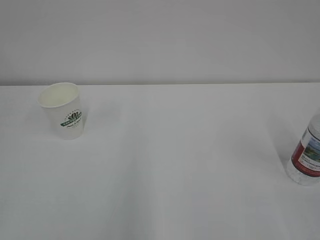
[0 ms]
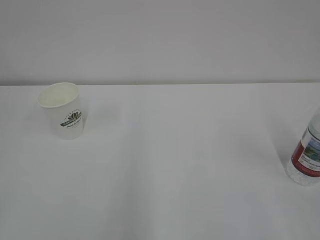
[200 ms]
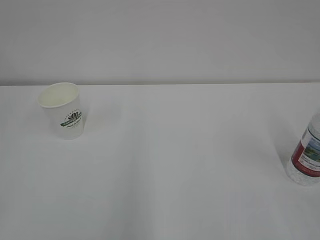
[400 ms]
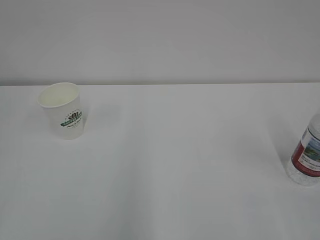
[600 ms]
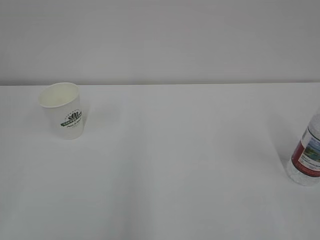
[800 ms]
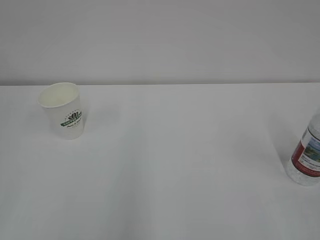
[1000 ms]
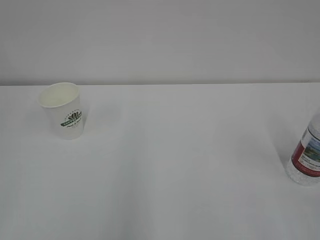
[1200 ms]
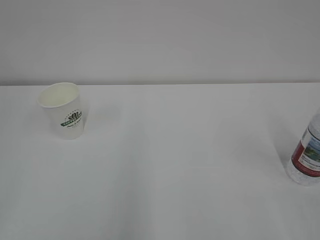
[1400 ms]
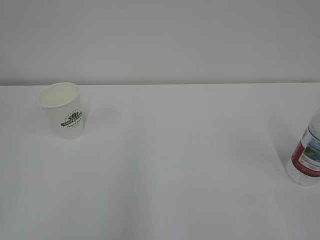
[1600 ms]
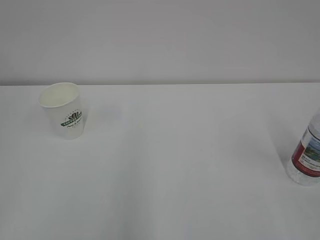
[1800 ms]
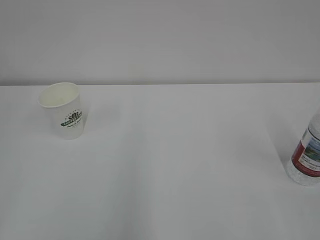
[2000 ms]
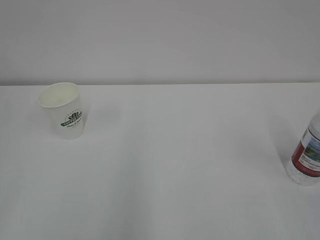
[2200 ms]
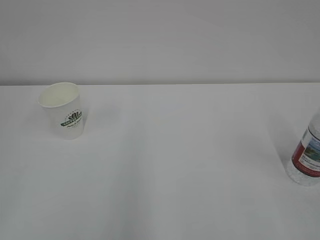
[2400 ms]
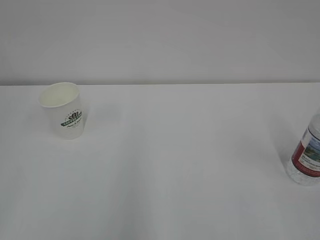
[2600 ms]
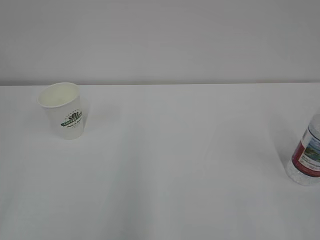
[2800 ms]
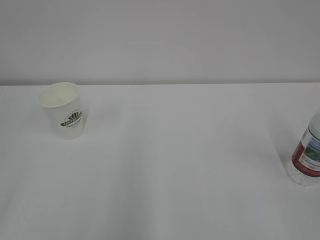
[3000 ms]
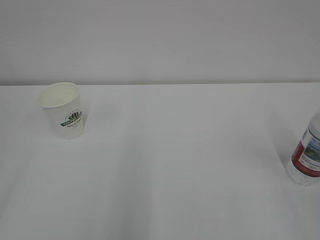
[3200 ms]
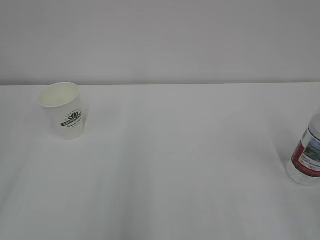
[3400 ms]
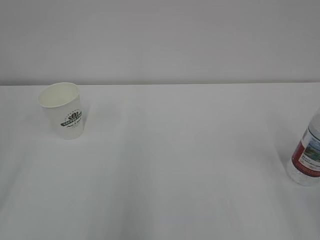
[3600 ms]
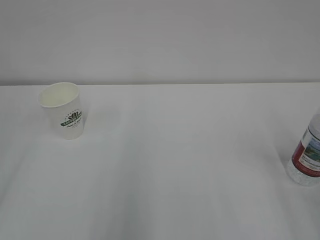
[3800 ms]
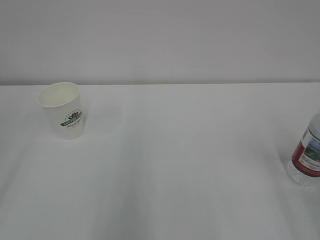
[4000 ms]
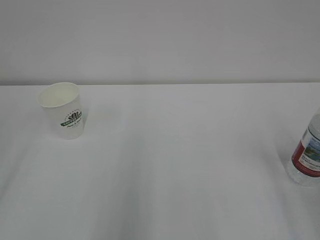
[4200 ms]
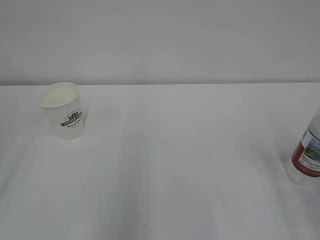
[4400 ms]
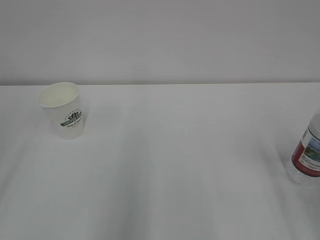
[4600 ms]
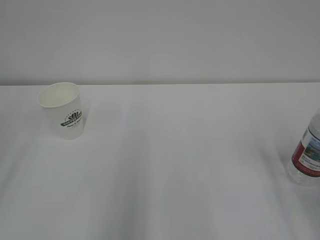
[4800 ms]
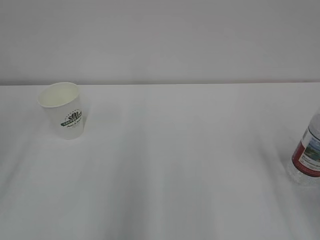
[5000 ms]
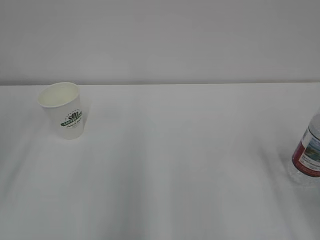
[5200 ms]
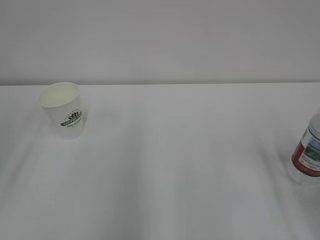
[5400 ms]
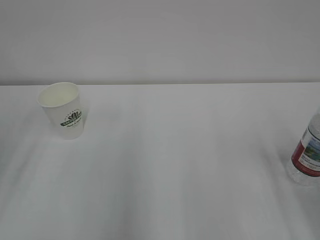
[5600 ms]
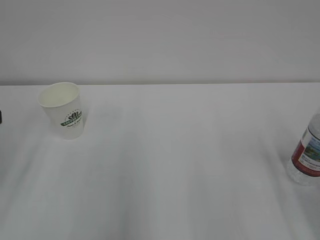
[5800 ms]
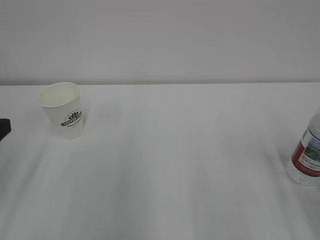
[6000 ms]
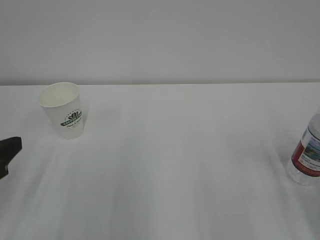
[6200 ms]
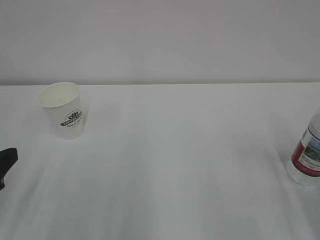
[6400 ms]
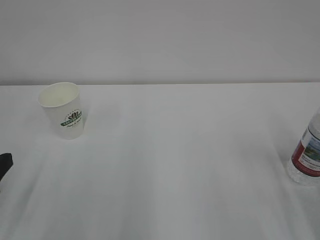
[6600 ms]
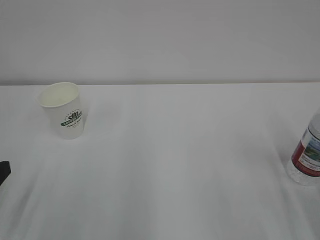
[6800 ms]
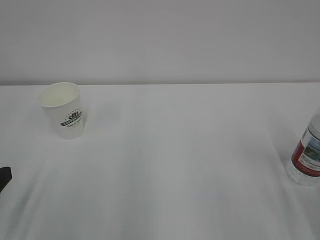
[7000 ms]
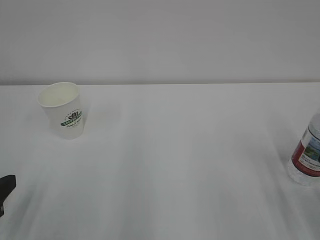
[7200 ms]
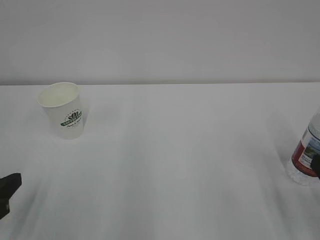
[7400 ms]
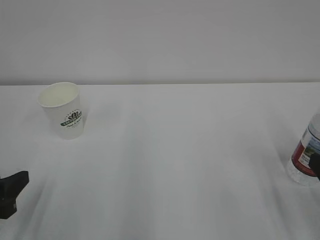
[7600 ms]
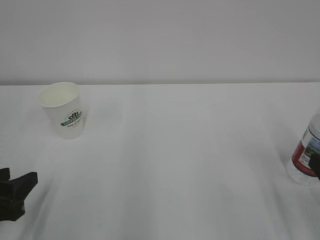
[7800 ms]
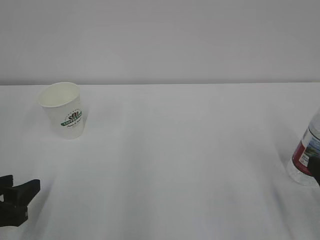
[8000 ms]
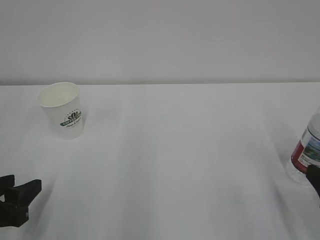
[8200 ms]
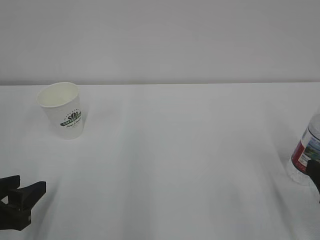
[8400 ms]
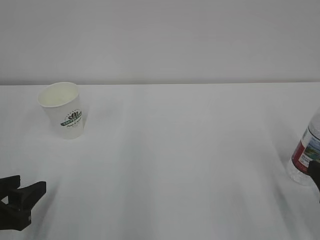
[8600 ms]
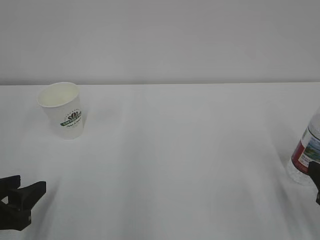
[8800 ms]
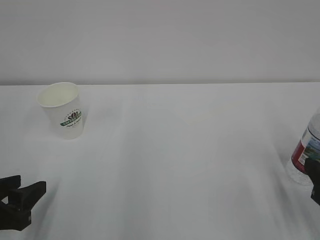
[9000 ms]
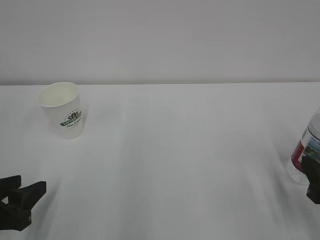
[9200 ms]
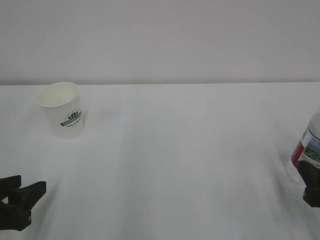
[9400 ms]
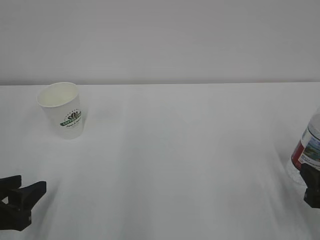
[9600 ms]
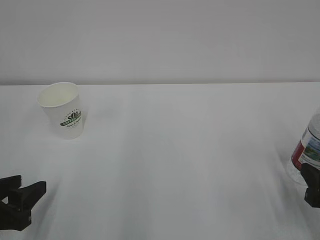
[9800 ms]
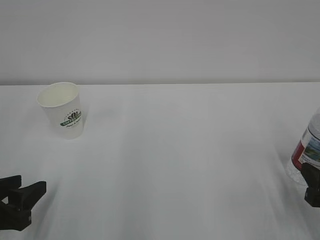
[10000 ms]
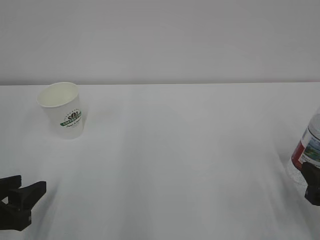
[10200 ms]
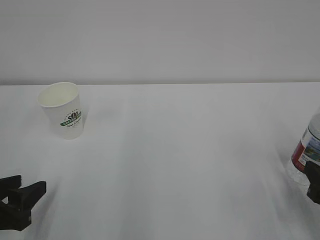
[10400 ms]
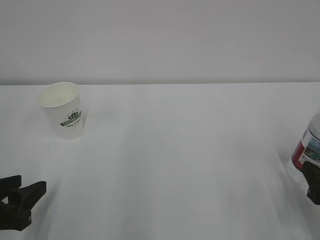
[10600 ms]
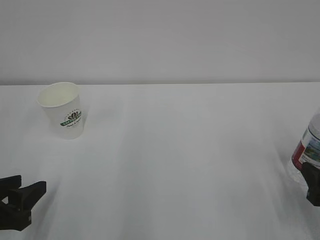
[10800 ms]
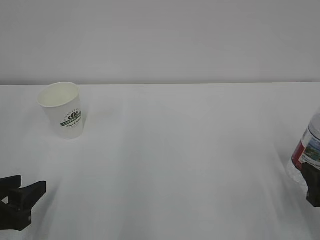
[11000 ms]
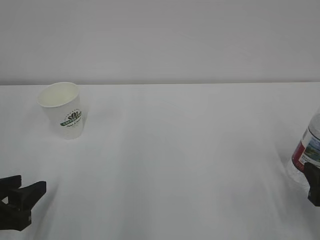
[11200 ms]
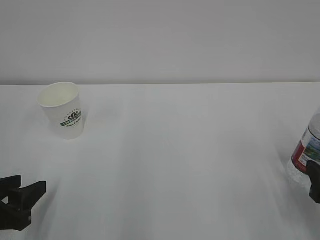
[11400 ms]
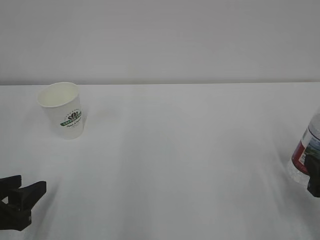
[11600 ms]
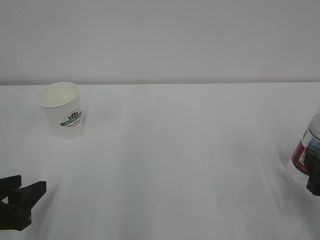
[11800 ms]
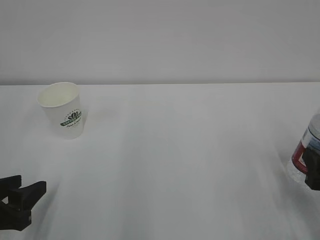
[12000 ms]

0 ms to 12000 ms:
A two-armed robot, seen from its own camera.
6000 ms to 7600 ms: The left gripper heads downward, covering roughly 10 cm.

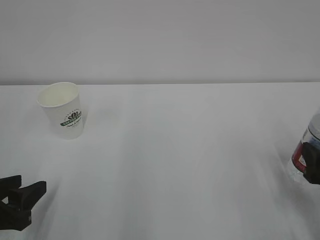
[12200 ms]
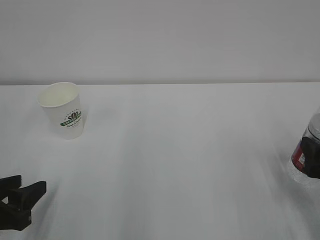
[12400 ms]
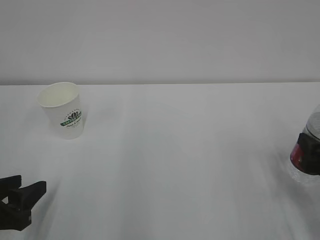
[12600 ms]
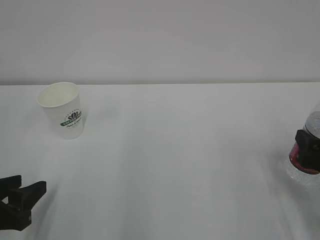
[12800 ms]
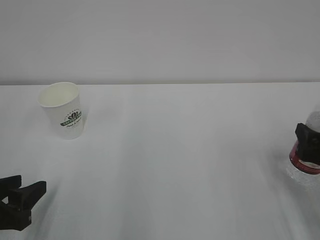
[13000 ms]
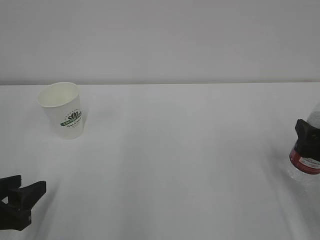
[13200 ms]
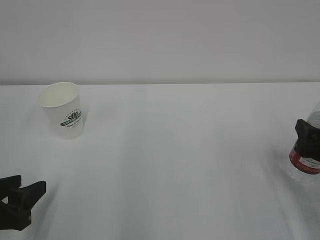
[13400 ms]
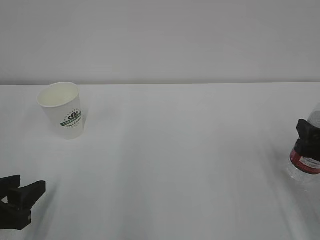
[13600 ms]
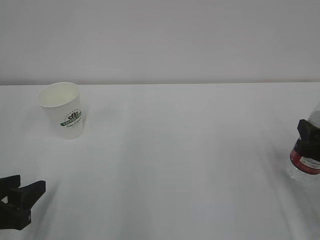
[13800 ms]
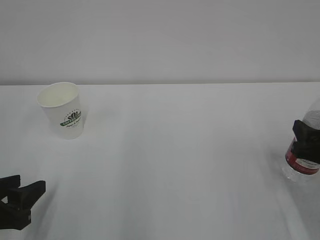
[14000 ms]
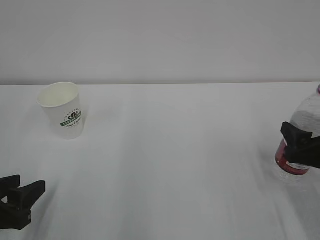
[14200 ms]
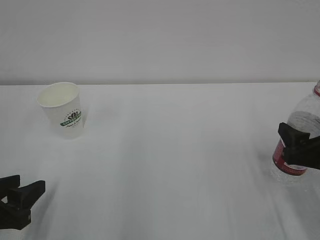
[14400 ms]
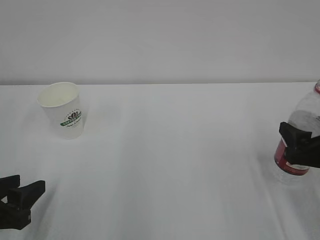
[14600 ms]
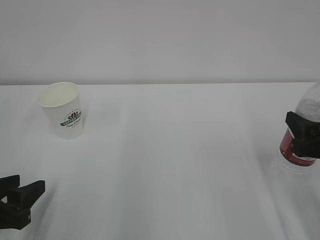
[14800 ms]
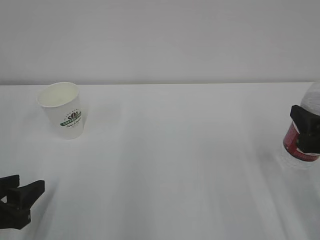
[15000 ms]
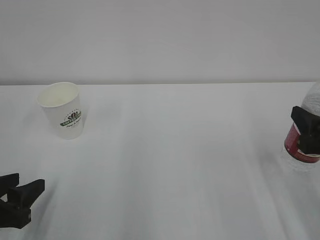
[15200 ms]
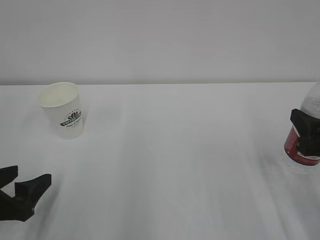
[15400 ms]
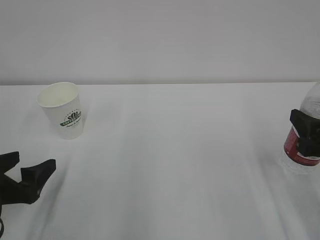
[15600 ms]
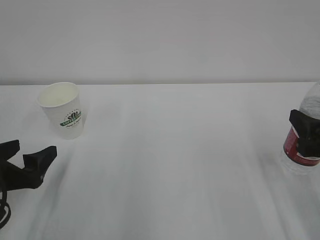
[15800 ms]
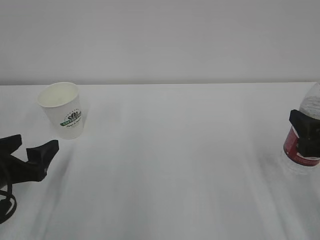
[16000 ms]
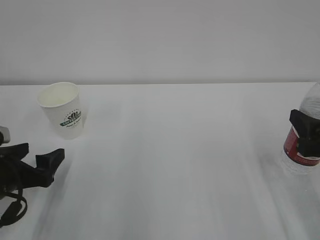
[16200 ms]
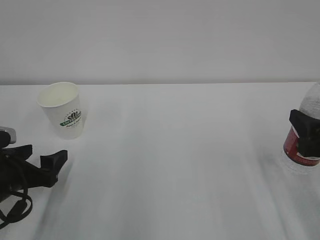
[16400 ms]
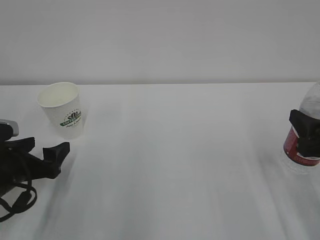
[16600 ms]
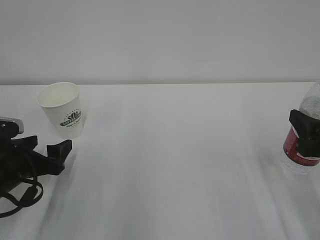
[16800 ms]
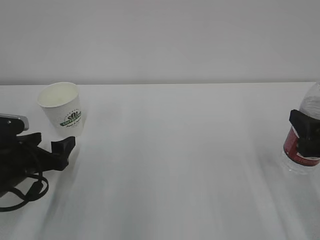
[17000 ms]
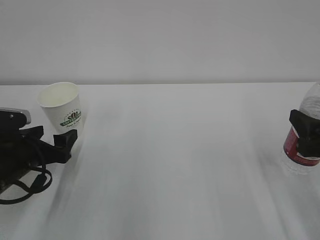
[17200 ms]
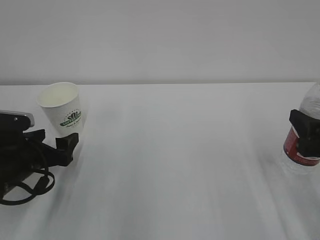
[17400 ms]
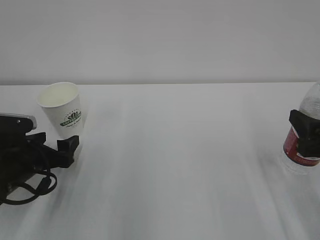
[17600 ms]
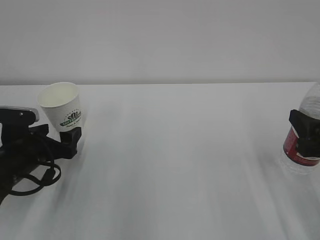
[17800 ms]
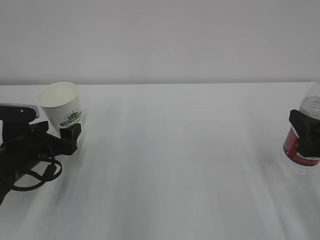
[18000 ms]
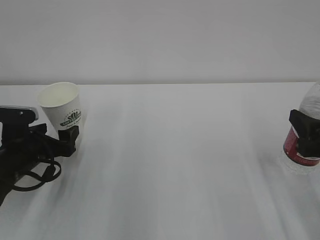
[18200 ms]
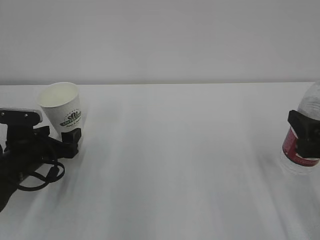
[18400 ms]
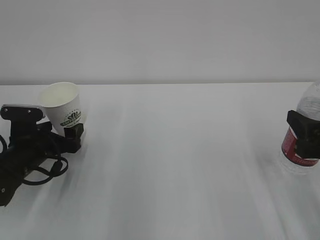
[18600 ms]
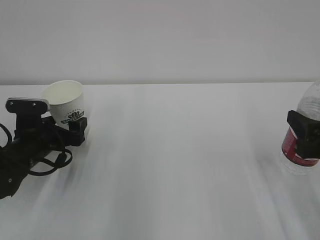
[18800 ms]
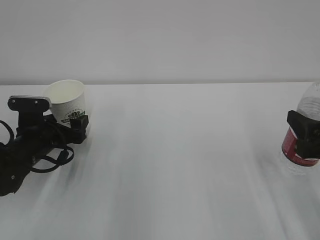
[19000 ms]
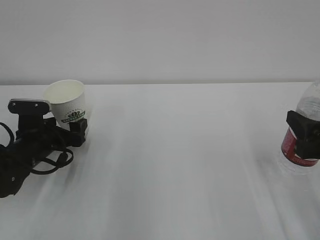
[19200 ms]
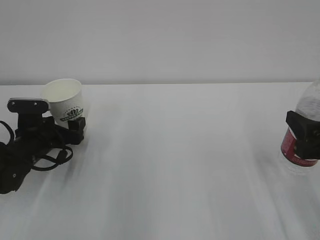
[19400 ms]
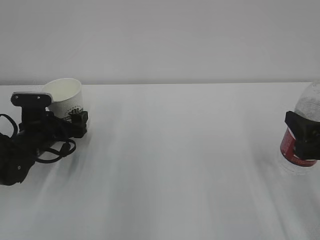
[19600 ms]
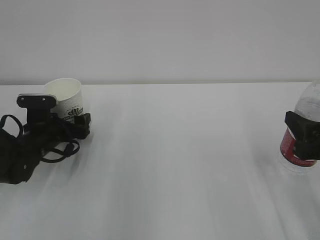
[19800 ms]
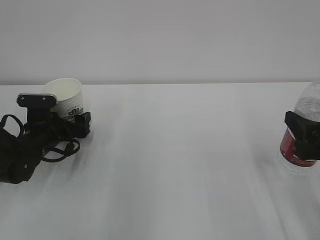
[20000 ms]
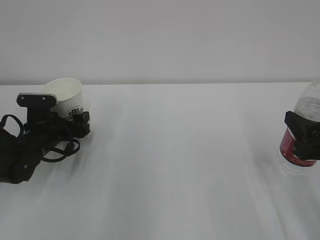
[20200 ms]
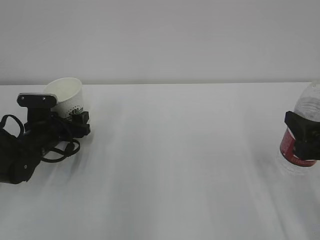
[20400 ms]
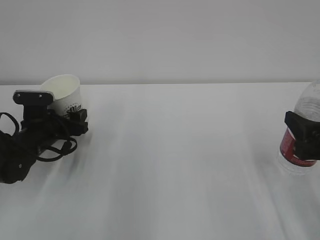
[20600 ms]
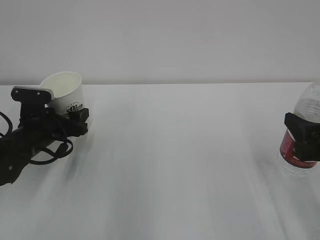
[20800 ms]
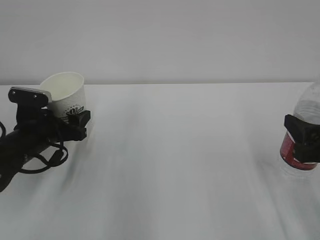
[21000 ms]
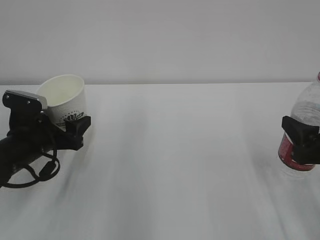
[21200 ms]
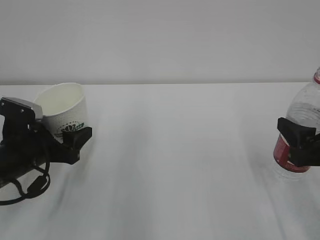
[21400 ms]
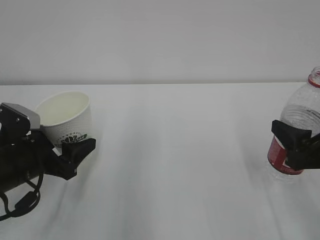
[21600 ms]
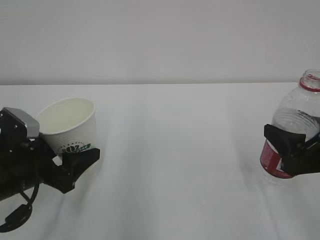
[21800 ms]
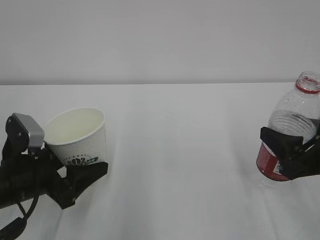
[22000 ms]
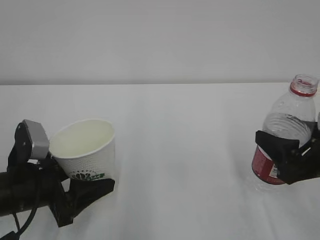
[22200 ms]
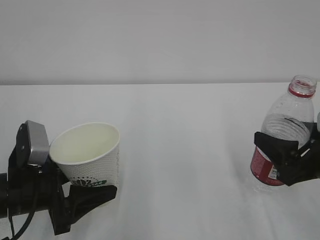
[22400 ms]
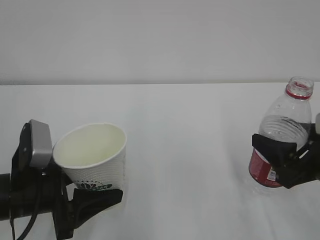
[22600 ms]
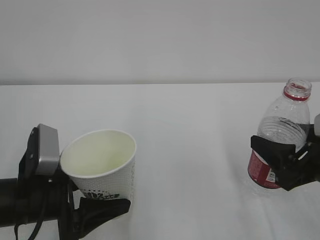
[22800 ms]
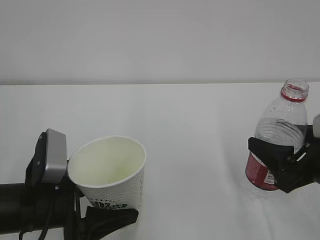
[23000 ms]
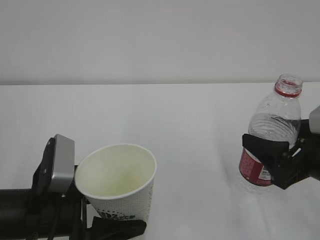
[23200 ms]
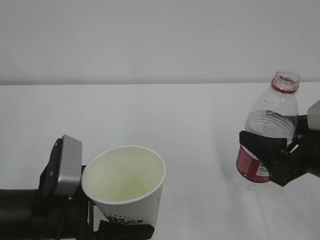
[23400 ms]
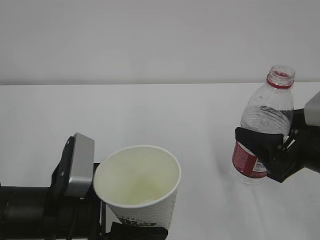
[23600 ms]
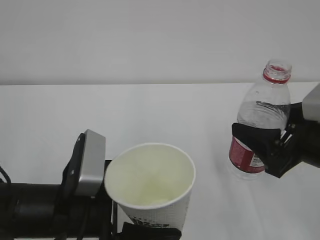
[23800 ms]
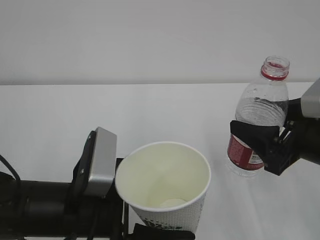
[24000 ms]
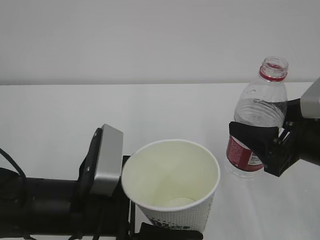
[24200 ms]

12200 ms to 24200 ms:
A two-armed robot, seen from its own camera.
12200 ms to 13800 ms: The right gripper closes its fingers.
13800 ms to 15200 ms: The right gripper shifts by some 5 cm.
15200 ms to 16600 ms: The left gripper heads forward, covering approximately 10 cm, and opens.
16600 ms to 18200 ms: The left gripper goes roughly 5 cm forward.
18200 ms to 19800 ms: The left gripper heads forward, covering approximately 5 cm.
19800 ms to 21200 ms: The left gripper shifts approximately 5 cm backward, and closes its fingers.
21200 ms to 22600 ms: The left gripper is displaced backward by roughly 10 cm.
22600 ms to 24200 ms: The left gripper goes roughly 10 cm to the right.
